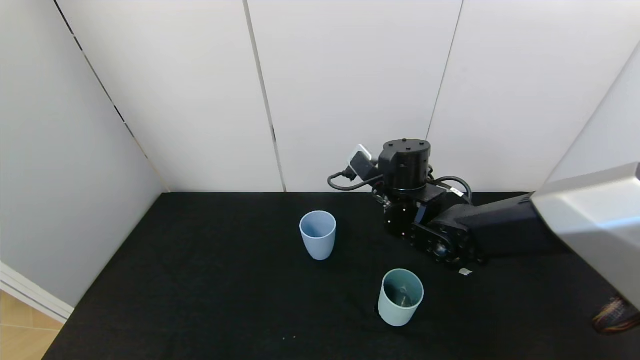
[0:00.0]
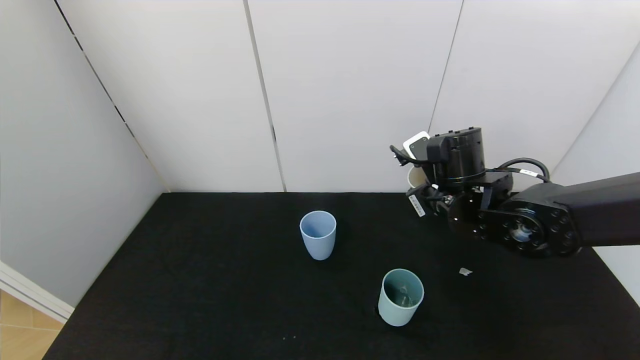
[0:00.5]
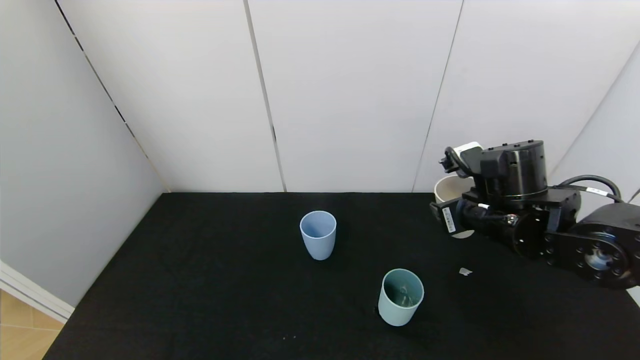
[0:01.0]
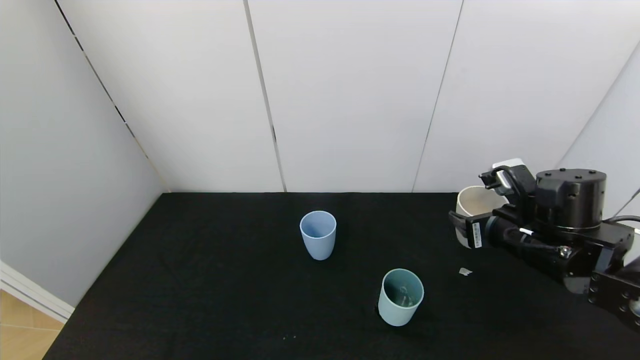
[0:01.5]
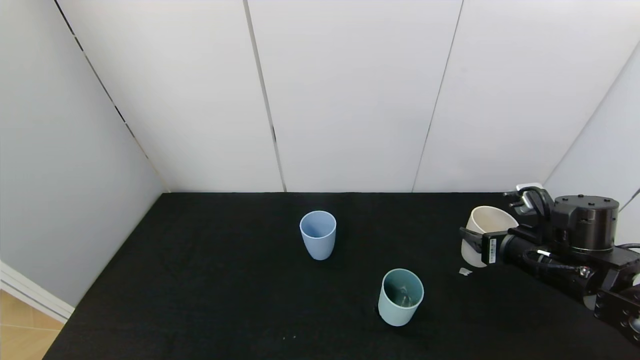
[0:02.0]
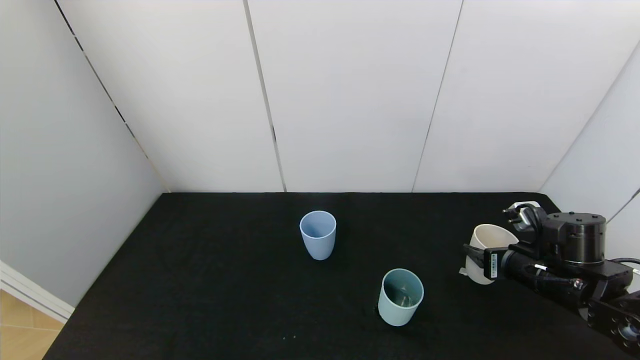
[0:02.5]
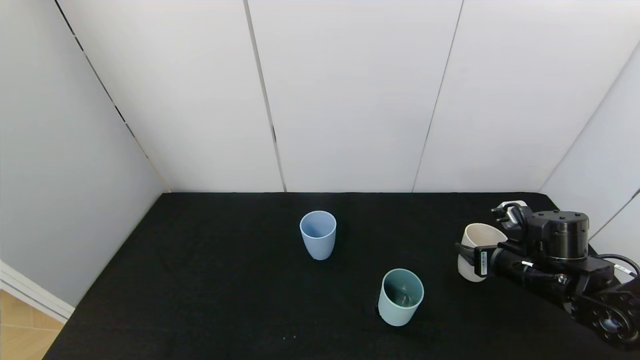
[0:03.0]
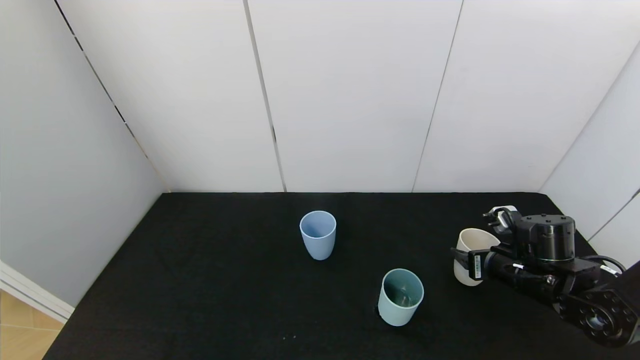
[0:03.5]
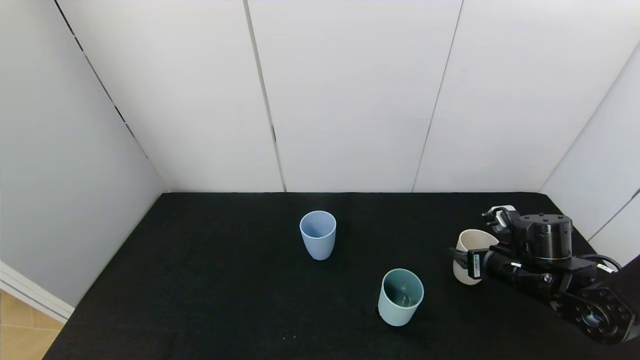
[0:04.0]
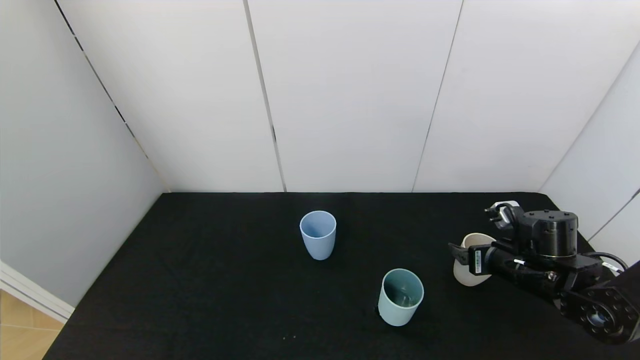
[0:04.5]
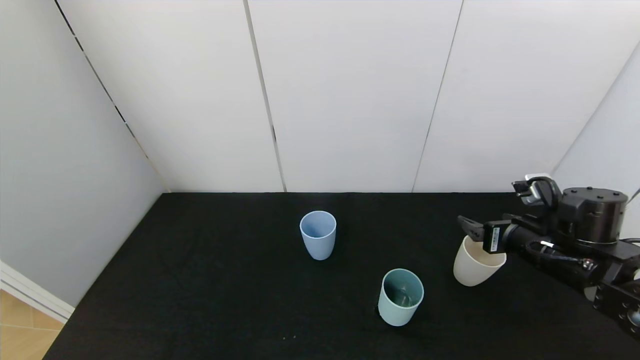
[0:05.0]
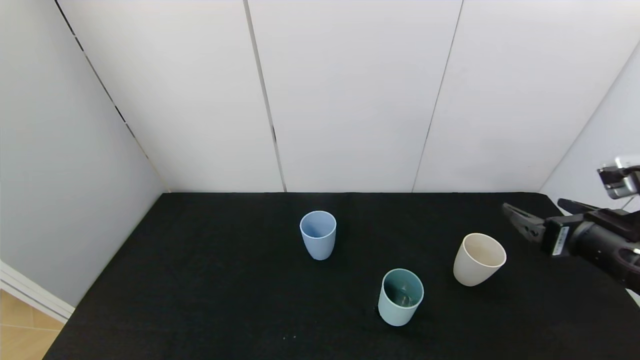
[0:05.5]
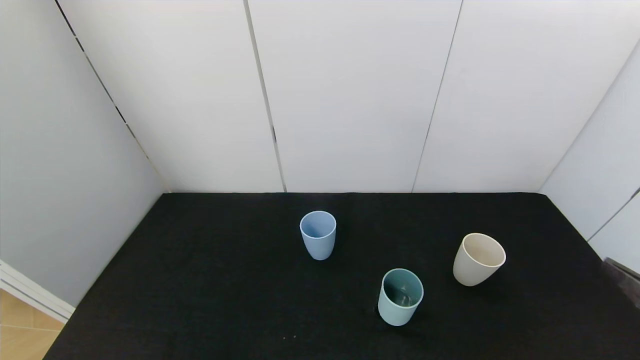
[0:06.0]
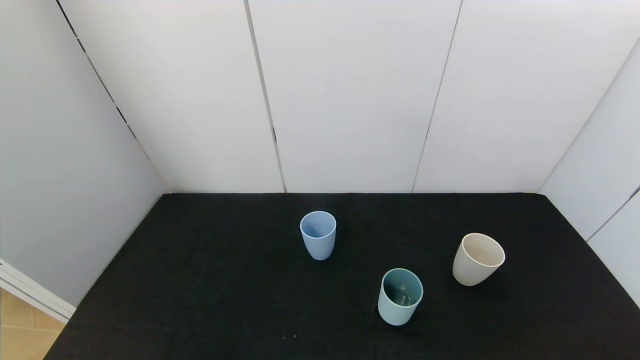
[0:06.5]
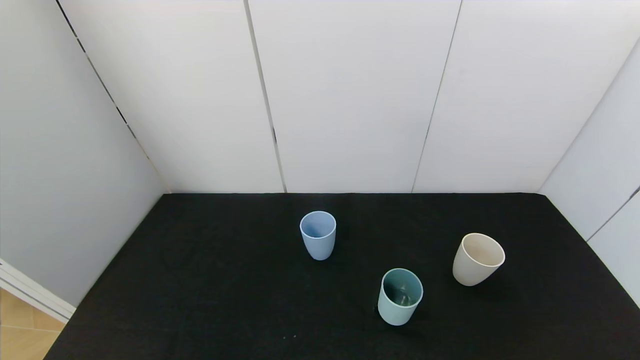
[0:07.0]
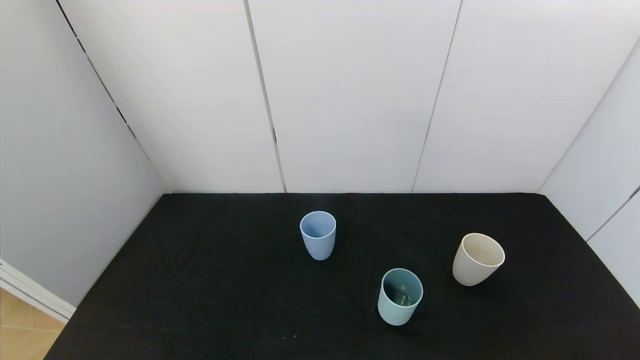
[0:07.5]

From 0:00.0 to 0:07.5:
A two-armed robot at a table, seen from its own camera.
Task of the whole recording: use the gripper to pour the water into the other two cups on black table.
Step, from 0:00.0 to 0:04.5: Place the white cup with the right gripper.
From 0:00.0 to 0:02.0: The right gripper heads to the right and backward, covering roughly 20 cm.
From 0:02.0 to 0:04.0: The right gripper moves downward, roughly 5 cm.
From 0:04.0 to 0:05.5: The right gripper moves upward and backward, roughly 15 cm, and opens up.
From 0:05.5 to 0:07.5: The right gripper moves backward and downward, roughly 25 cm.
